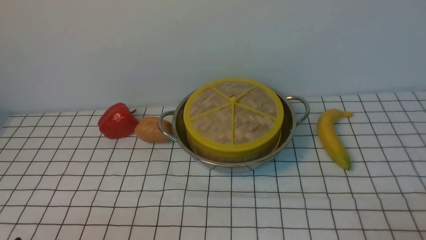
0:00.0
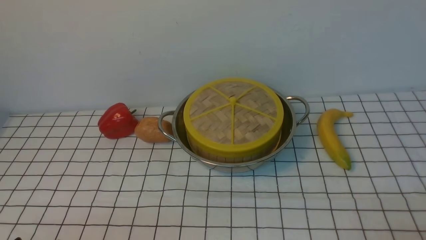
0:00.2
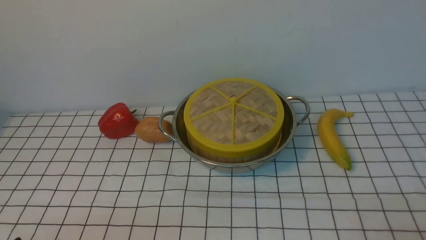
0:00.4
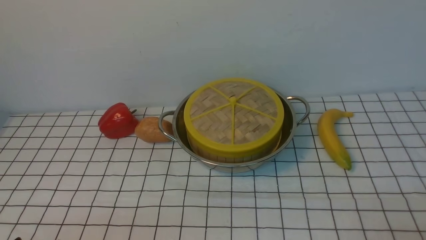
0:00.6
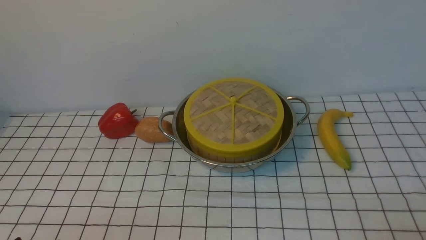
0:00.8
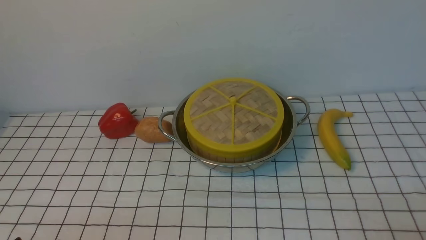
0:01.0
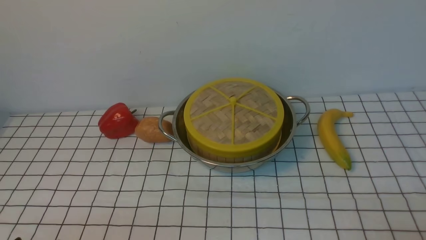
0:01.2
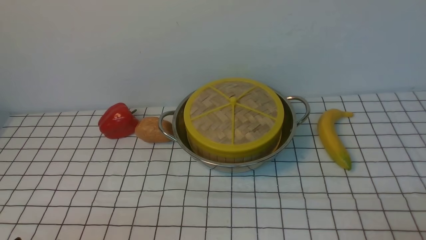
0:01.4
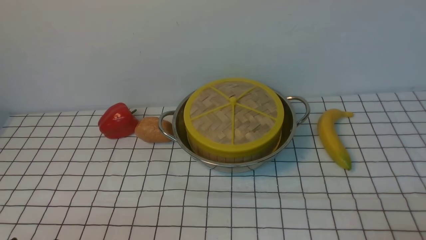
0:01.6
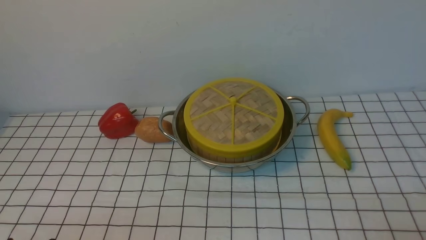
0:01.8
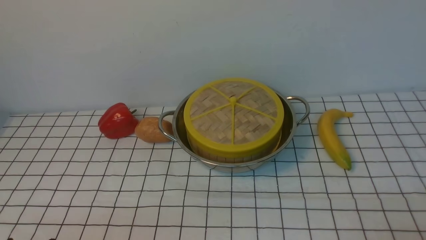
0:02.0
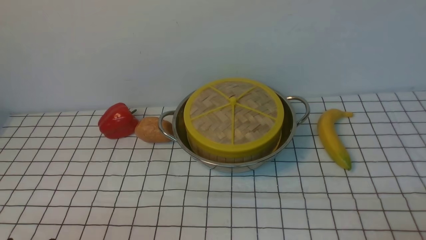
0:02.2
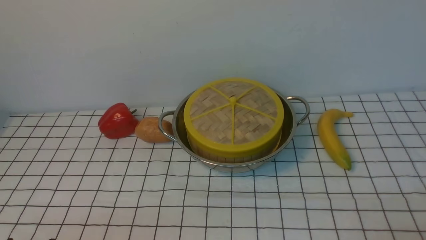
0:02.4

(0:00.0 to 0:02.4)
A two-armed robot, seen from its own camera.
Task of the whole recording: place the steamer in the pot on the white tablecloth, and put the lid on the steamer.
0:01.2 - 0:02.4: Neither gripper changes place.
